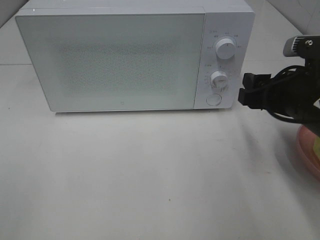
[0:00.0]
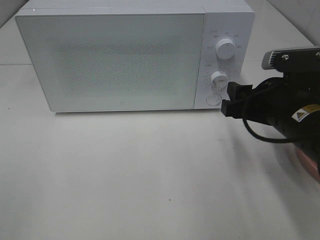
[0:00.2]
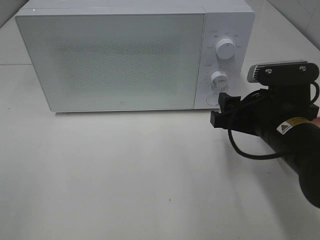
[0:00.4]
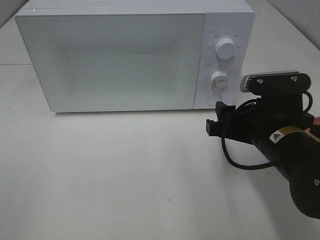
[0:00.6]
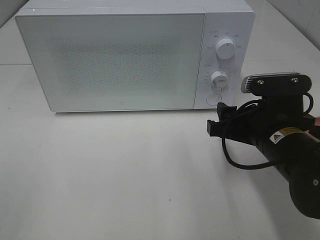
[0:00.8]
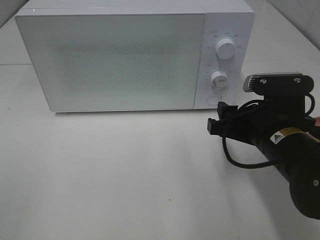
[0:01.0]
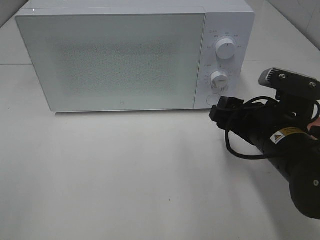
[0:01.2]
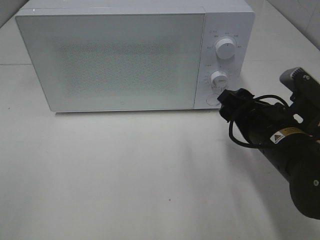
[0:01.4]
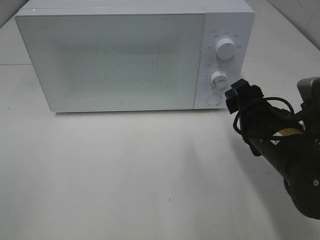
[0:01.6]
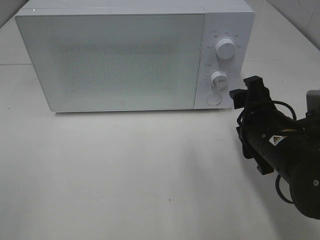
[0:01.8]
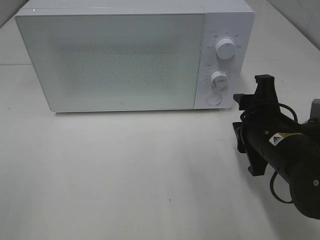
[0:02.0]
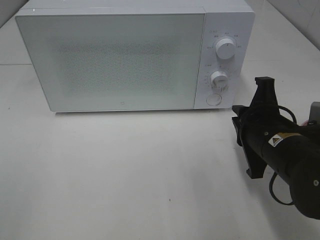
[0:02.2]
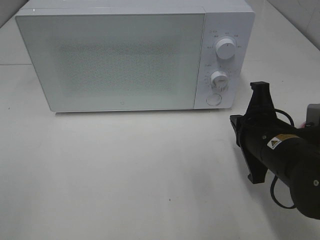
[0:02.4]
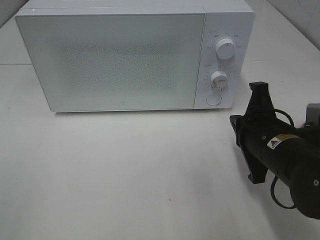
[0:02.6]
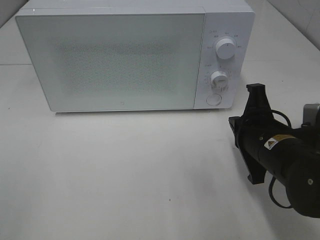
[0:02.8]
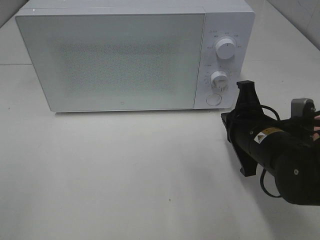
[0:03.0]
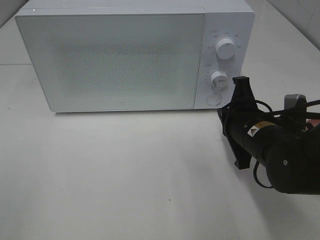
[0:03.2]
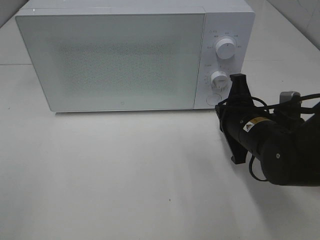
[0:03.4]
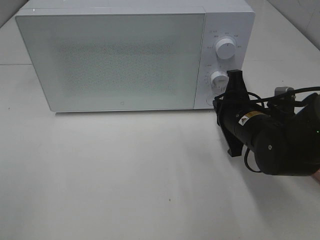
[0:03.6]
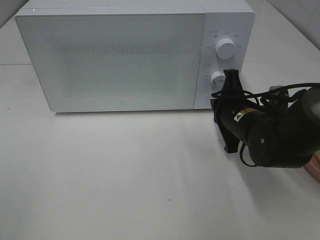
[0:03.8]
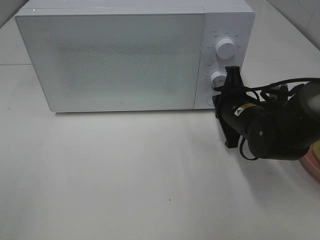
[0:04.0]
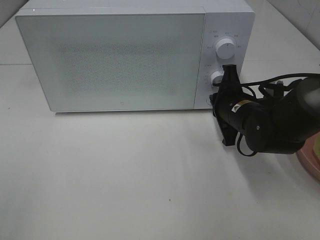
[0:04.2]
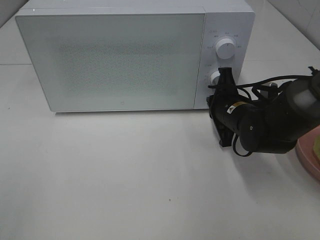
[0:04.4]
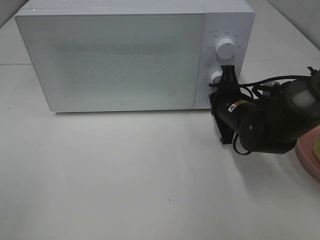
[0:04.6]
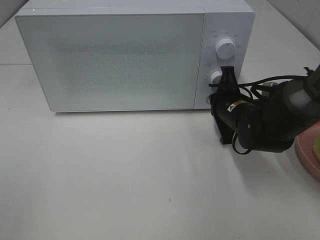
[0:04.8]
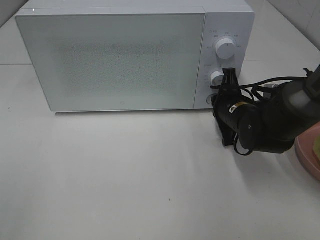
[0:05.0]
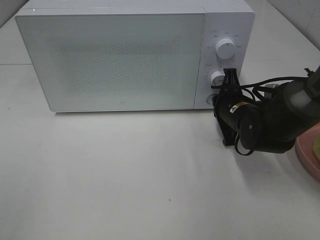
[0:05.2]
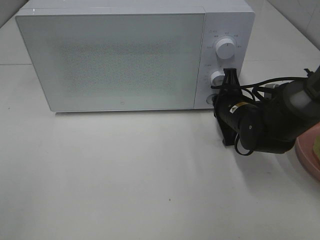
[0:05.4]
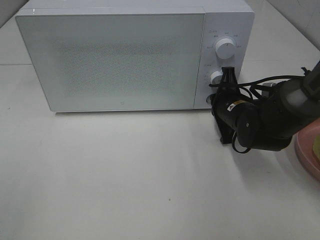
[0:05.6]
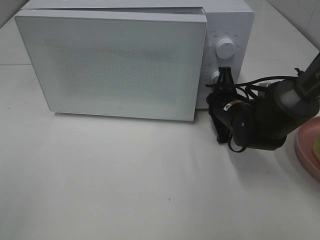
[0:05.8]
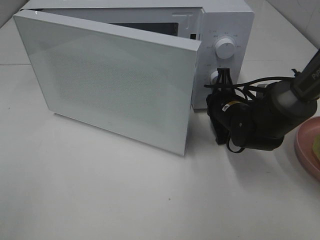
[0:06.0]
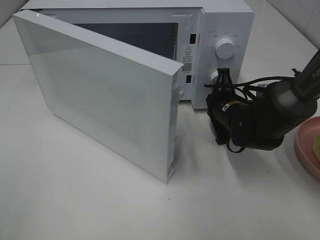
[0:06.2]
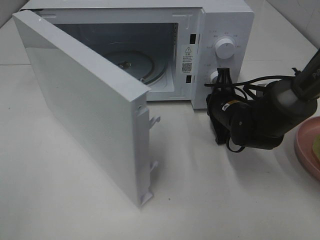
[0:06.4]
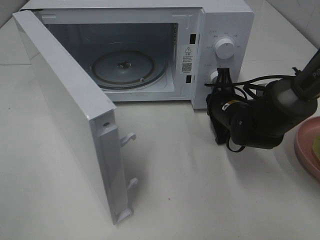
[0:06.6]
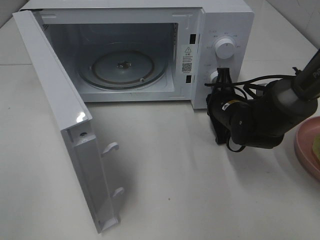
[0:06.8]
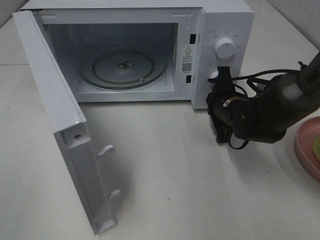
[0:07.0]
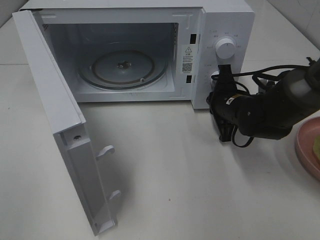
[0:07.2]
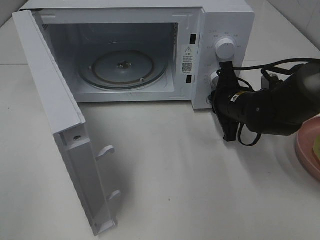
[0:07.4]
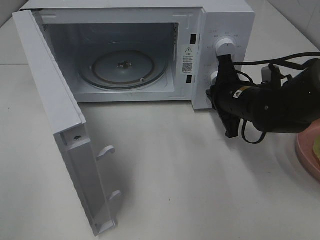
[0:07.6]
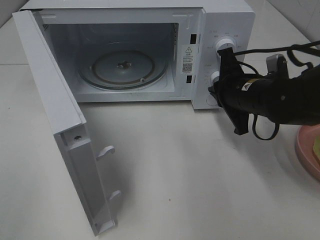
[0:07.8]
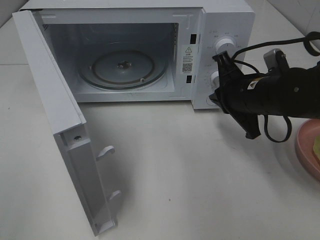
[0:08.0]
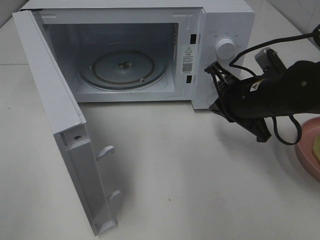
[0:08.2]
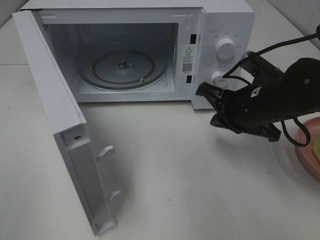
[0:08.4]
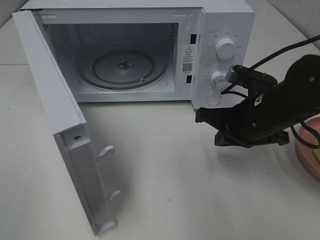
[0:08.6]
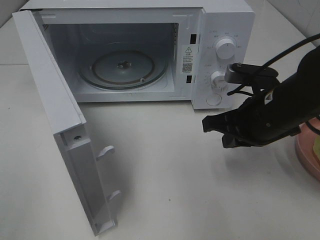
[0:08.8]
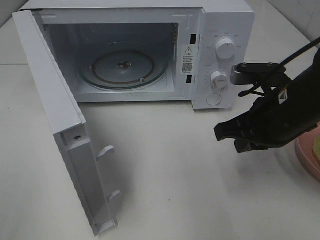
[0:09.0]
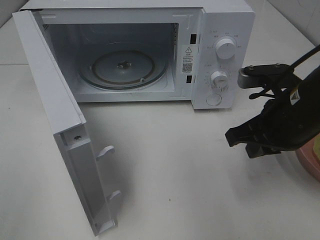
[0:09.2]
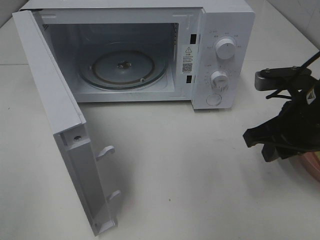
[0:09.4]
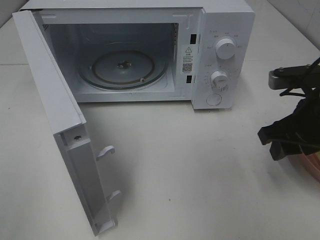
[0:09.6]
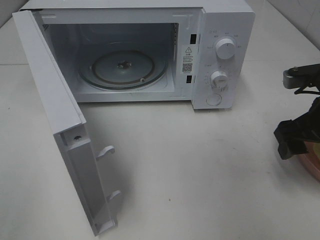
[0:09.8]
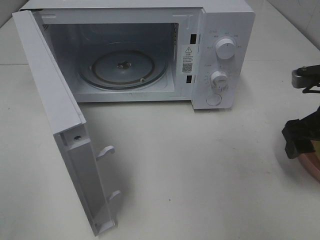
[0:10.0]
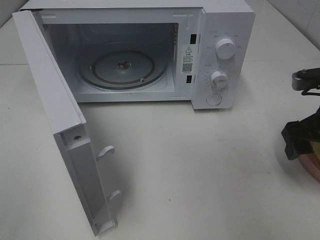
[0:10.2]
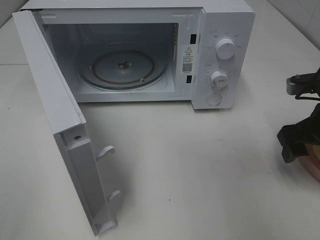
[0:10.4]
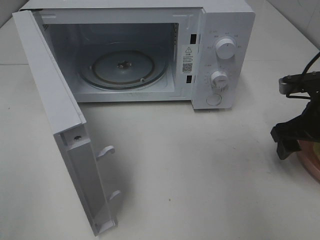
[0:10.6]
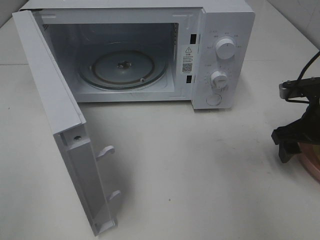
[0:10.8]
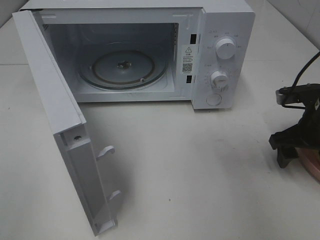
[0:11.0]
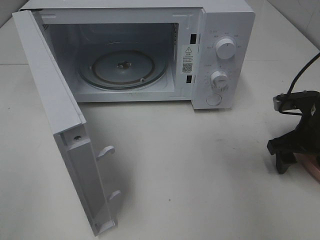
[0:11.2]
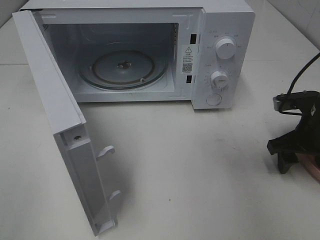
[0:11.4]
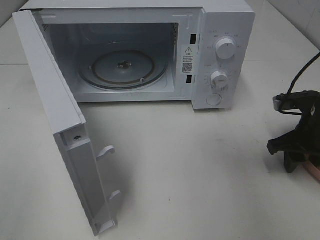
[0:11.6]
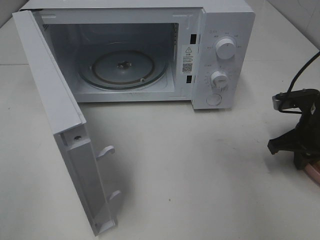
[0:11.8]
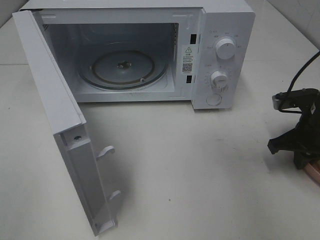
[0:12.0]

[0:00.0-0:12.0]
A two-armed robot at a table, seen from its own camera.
Task of the whole recording: Heat Sandwich.
Step, 0:00.0 to 0:07.6: Right hand: press the switch.
0:00.0 to 0:01.6: The right gripper ends up about 5 cm from where it was.
0:01.6 to 0:03.0: The right gripper closes its fingers.
0:03.0 to 0:04.4: The right gripper goes roughly 10 cm forward.
0:04.4 to 0:06.0: The grippers make only small movements.
0:06.0 to 0:07.6: The right gripper changes place by roughly 5 cm.
0:07.6 to 0:09.0: The right gripper travels backward and upward by roughly 10 cm.
0:09.0 to 0:10.4: The right gripper moves to the right, some 10 cm, and opens.
0:10.4 to 0:12.0: The right gripper ends up roughly 5 cm from where it was, and closes its fingers.

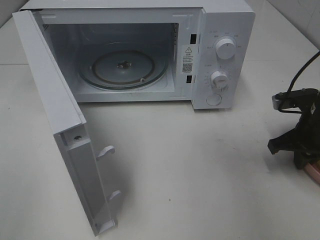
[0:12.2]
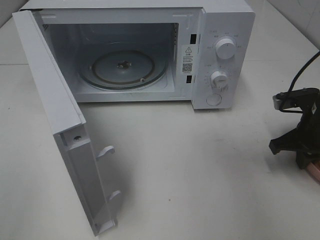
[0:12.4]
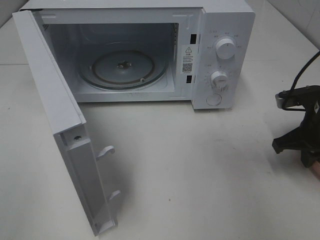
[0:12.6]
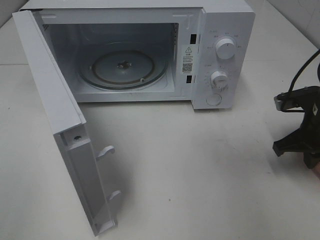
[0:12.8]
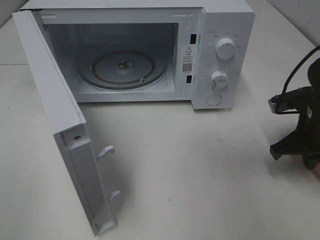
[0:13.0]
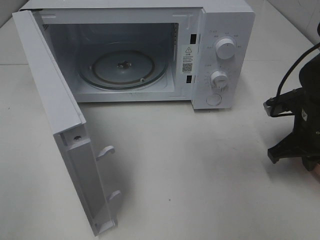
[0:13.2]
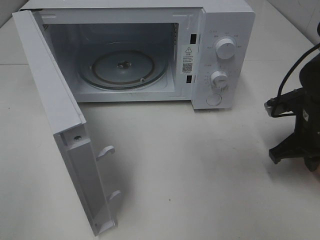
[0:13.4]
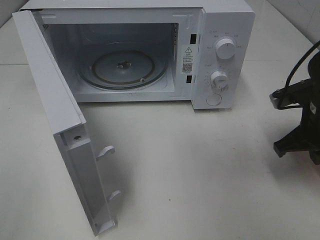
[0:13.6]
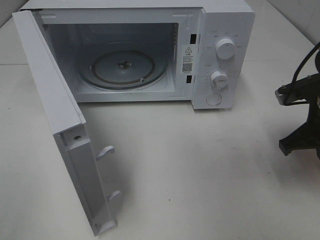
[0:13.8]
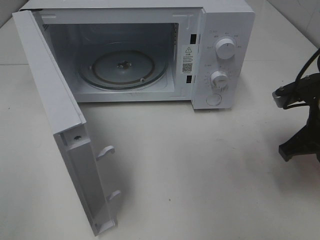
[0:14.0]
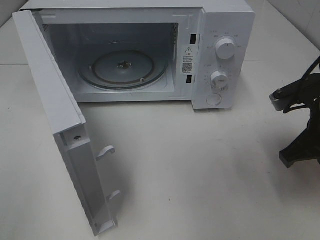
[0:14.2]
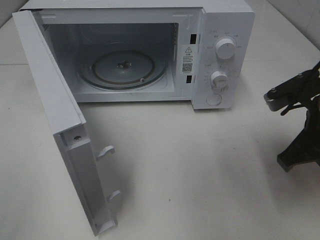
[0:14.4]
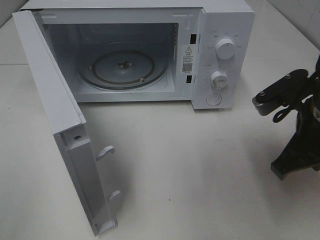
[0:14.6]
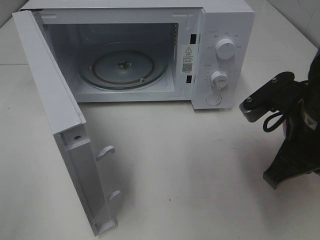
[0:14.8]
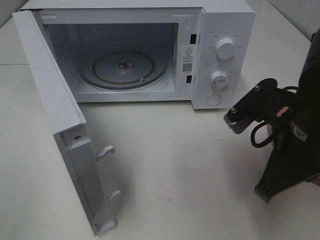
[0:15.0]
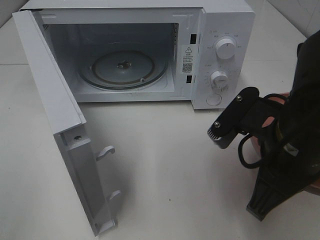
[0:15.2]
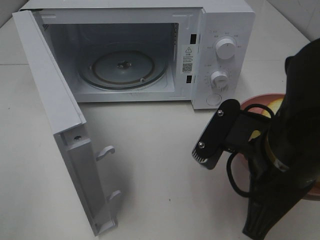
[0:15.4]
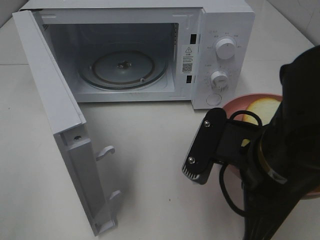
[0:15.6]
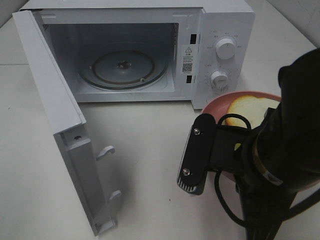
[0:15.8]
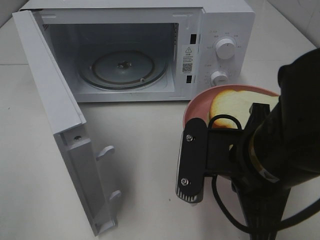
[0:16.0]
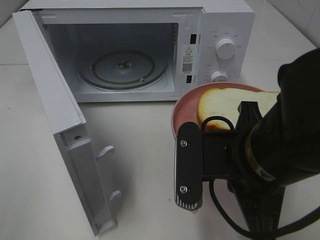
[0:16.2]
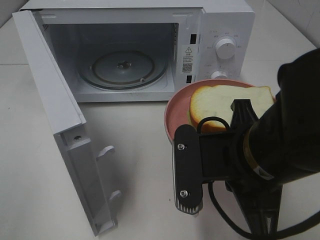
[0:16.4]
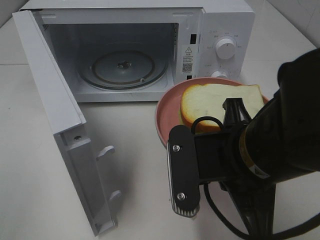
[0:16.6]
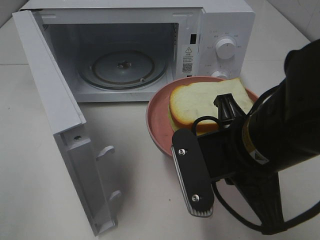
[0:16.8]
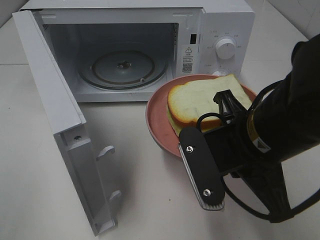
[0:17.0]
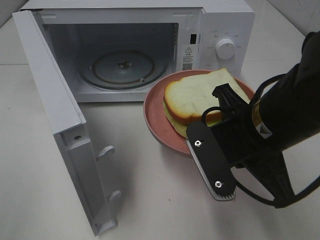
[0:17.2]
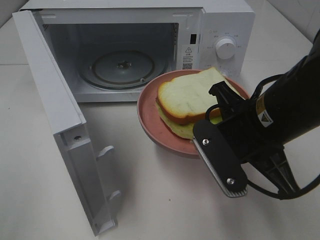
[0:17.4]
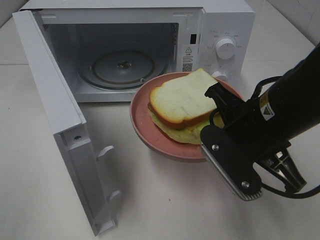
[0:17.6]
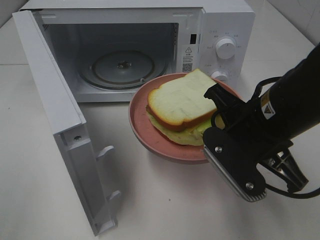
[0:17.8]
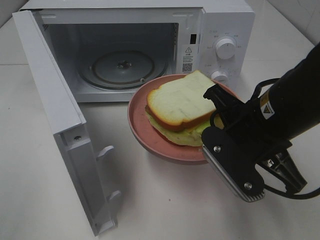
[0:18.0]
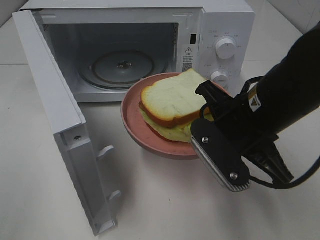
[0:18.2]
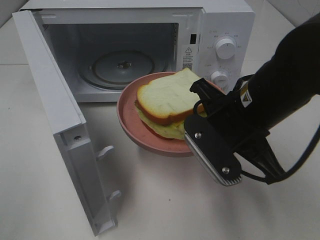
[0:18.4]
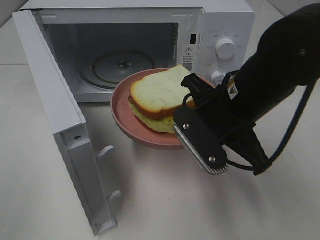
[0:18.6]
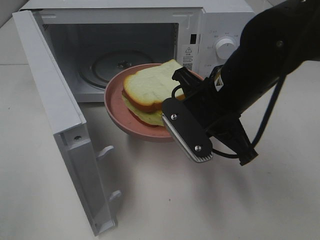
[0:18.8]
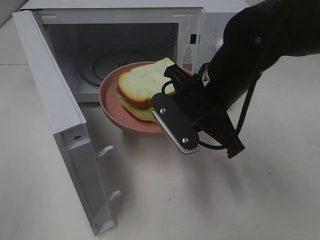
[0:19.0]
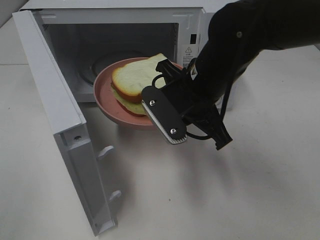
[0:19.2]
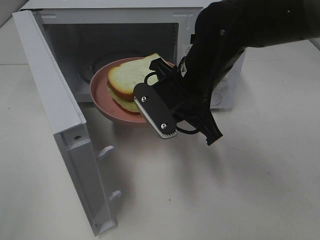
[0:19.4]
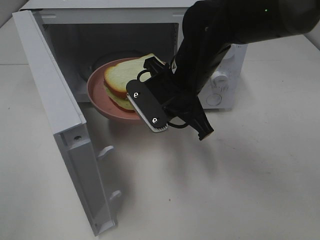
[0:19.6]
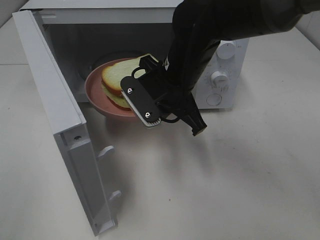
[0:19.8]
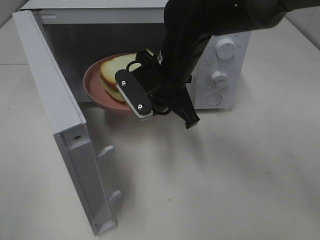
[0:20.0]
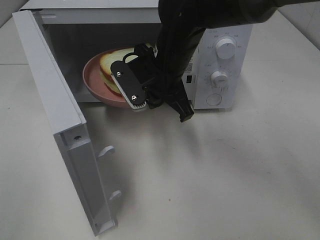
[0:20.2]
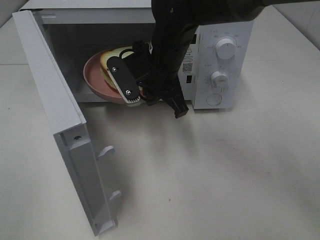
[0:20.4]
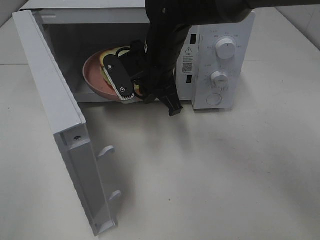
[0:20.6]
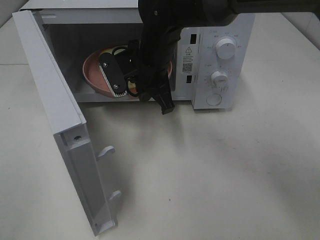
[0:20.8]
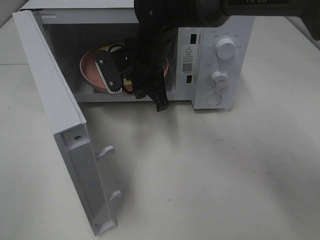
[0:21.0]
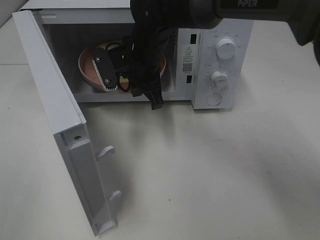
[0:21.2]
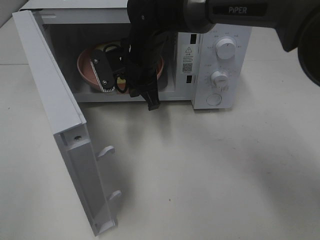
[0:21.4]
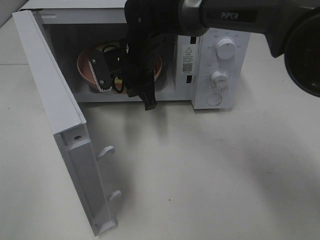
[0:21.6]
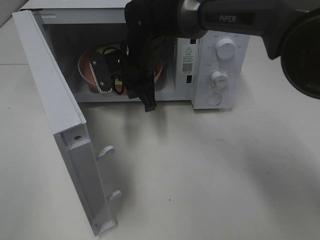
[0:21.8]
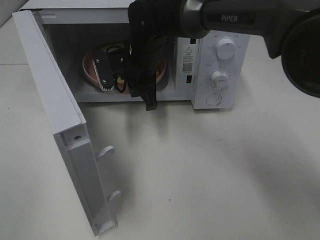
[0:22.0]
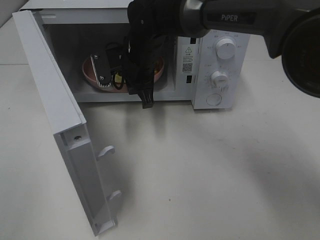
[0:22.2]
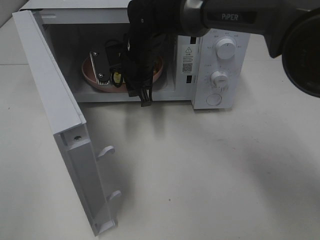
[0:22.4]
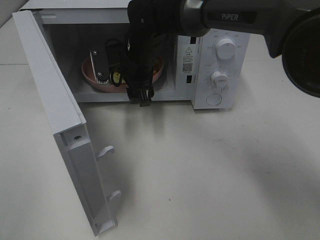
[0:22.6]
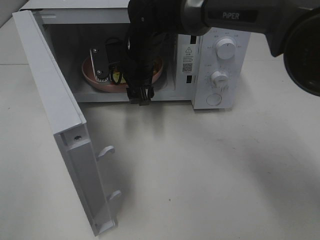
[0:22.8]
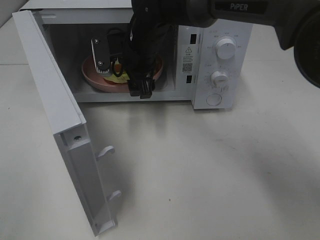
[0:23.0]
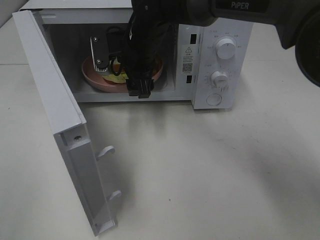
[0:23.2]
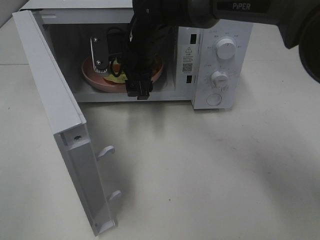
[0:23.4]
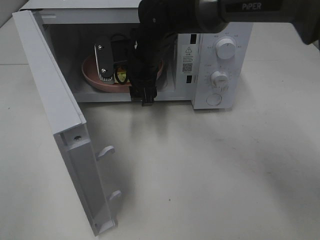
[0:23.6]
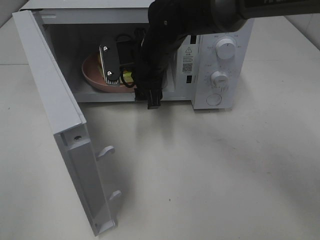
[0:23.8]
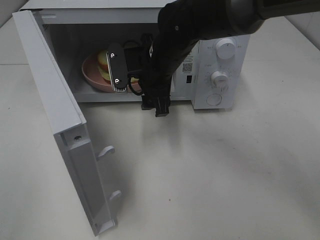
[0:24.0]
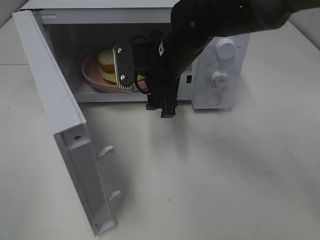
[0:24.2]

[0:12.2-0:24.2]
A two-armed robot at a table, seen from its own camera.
Task of the whole recording: Heat Sandwich.
Step, 0:12.6 to 0:23.6: Right hand: place the plate in the microwave.
0:12.2 to 0:13.8: The right gripper moves roughly 5 cm.
0:13.8 to 0:15.2: The right gripper is displaced to the left and backward by about 15 cm.
0:16.6 to 0:18.2: The right gripper shifts some 5 cm forward.
0:18.2 to 0:19.8: The right gripper moves forward and to the left, about 15 cm.
0:19.8 to 0:21.2: The right gripper goes some 10 cm forward and to the left.
0:21.2 to 0:22.6: The right gripper opens its fingers.
0:22.6 to 0:24.2: The right gripper heads backward and to the right, covering roughly 10 cm.
